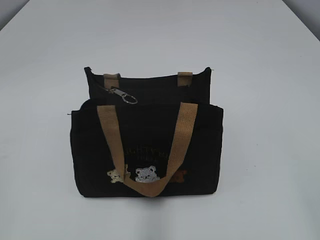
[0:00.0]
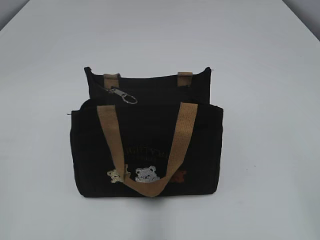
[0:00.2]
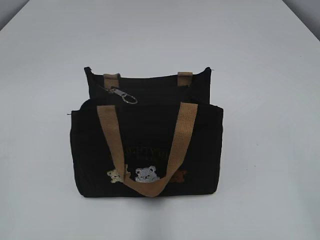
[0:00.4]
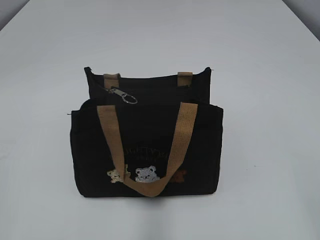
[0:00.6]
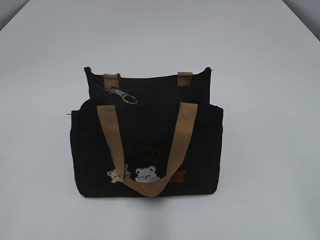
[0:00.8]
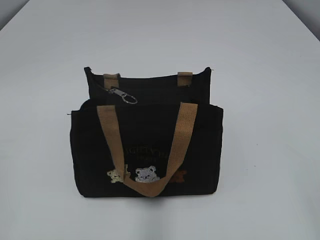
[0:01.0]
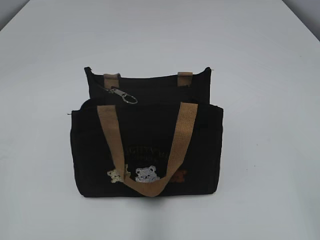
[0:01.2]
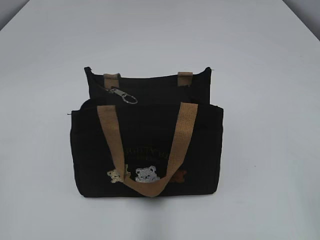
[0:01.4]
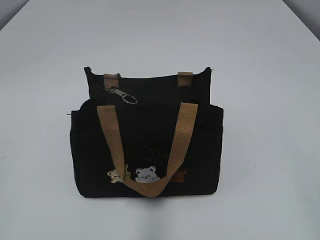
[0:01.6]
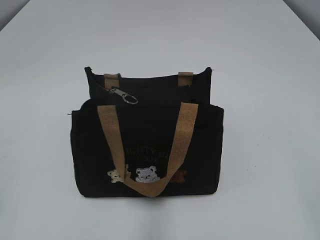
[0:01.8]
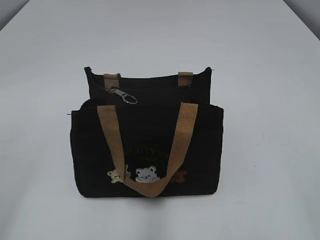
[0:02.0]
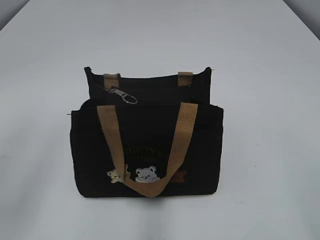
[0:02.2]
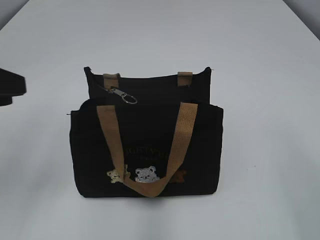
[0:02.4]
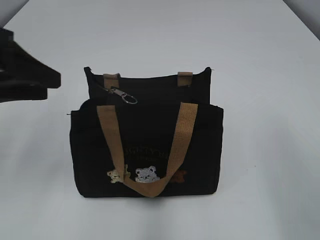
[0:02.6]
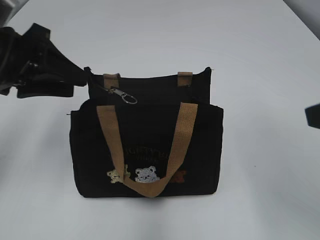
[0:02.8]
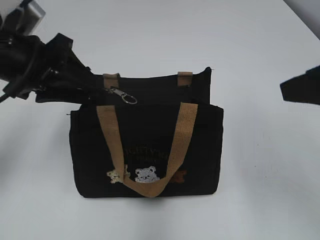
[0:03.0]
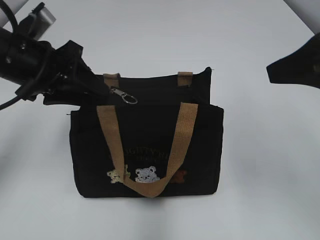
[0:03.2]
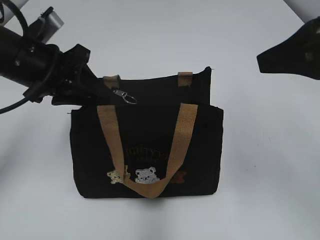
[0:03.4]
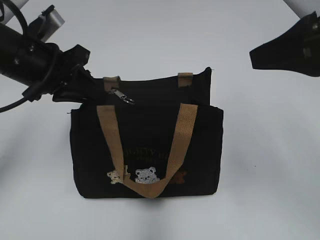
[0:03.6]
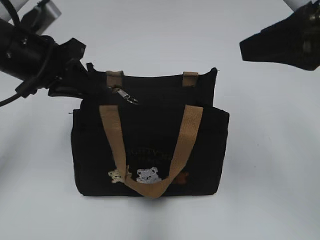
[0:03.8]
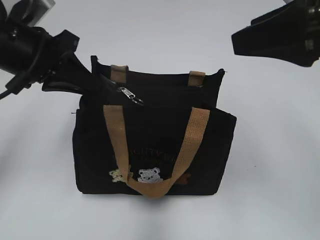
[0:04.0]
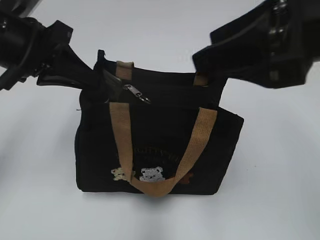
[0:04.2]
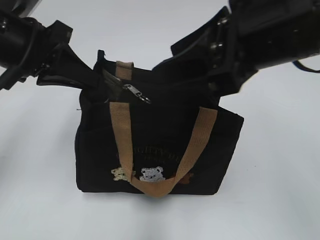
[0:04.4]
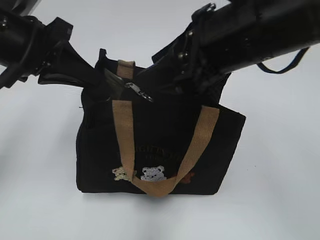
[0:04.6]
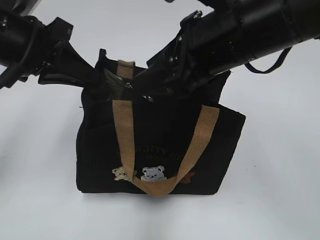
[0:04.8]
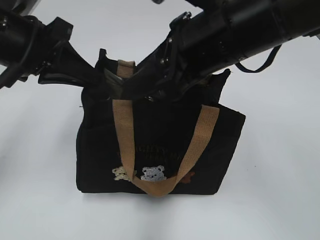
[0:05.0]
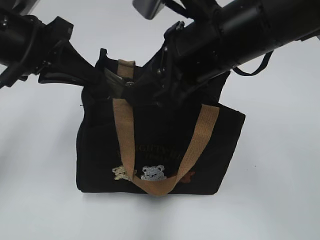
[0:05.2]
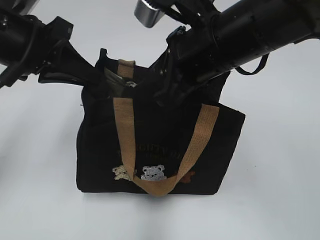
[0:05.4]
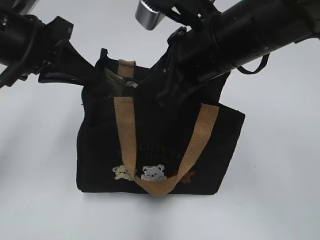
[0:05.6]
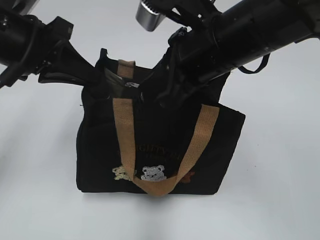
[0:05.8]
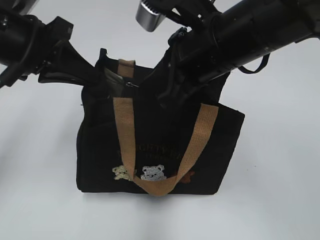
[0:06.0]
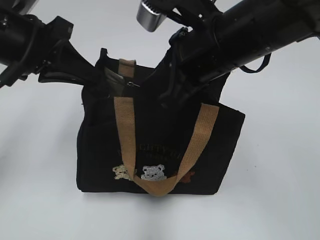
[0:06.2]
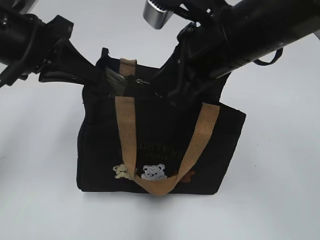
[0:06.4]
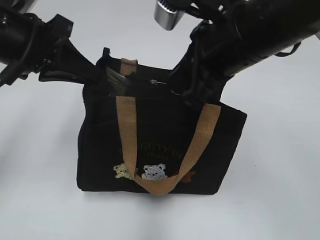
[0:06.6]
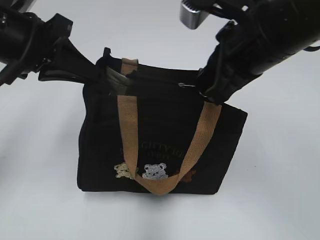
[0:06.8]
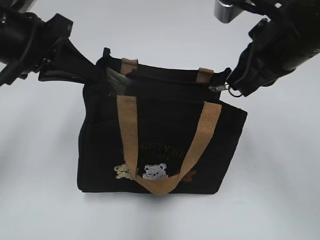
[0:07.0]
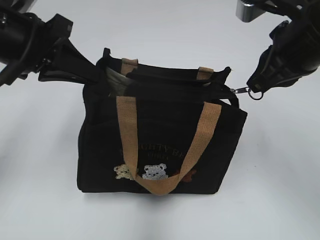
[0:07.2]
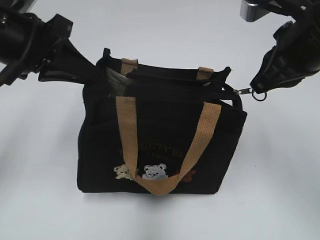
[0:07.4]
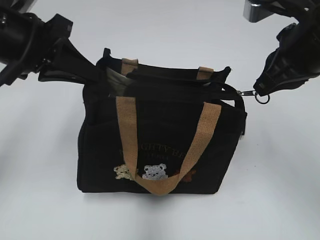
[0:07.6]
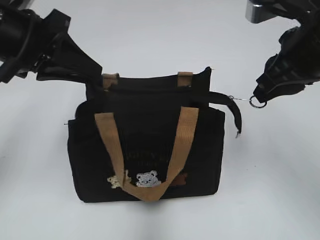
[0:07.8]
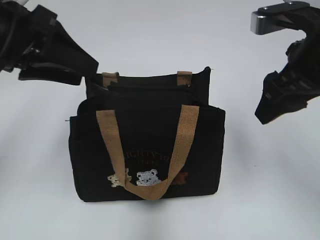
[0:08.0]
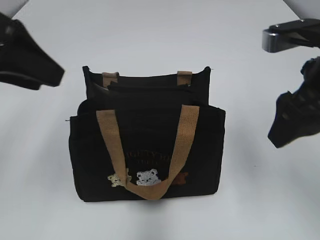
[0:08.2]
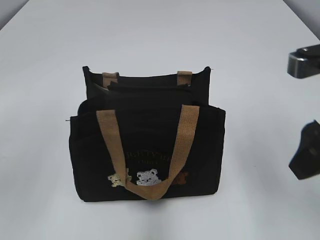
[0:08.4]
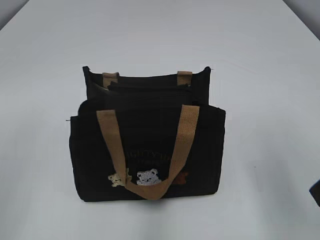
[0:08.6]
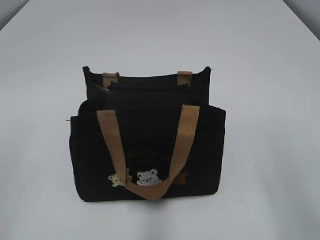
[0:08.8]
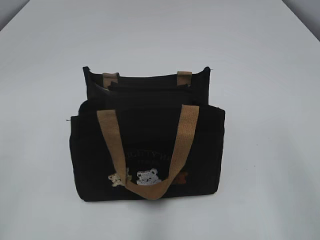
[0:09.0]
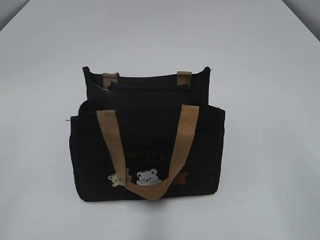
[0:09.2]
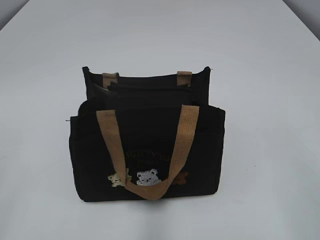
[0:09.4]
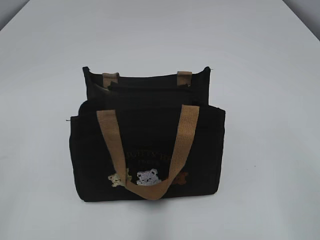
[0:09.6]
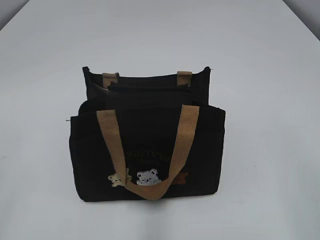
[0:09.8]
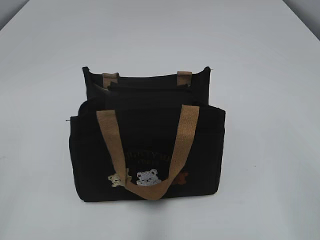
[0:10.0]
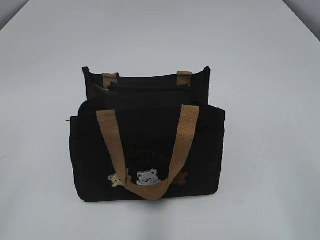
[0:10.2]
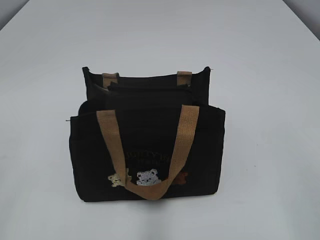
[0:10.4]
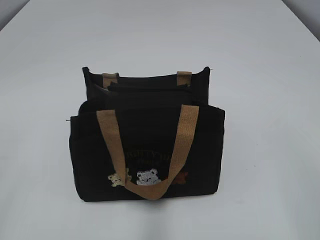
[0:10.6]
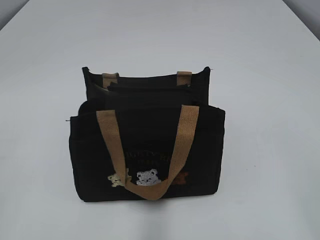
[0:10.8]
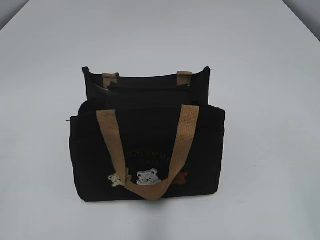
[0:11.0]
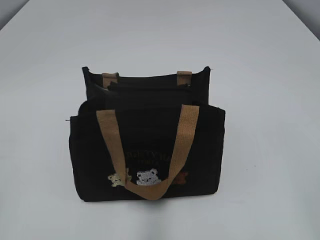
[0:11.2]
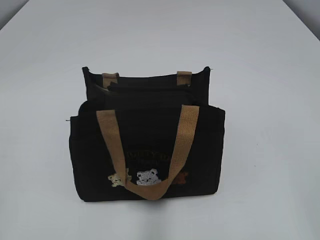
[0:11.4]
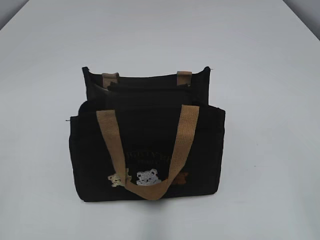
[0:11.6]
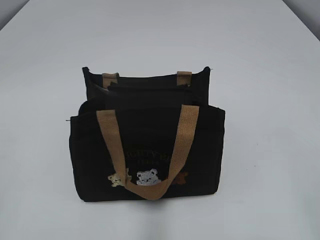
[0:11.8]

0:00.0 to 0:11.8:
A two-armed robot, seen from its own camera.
Step, 0:00.0 to 0:07.8: Pull open the zipper with your right hand.
0:01.4 to 0:03.0: The left gripper goes about 30 cm forward, while the right gripper is displaced forward by about 15 cm.
0:03.0 to 0:04.4: The right gripper moves to the left, roughly 10 cm. Meanwhile the left gripper closes up.
0:04.4 to 0:06.0: The right gripper is displaced forward, to the left and downward by some 10 cm, and closes.
0:06.0 to 0:07.4: The right gripper goes roughly 10 cm to the right.
0:07.4 to 0:08.8: The left gripper is displaced backward and to the left by approximately 25 cm, and opens up. The right gripper travels backward by some 15 cm, and opens.

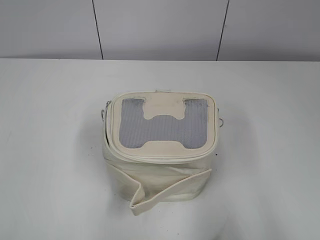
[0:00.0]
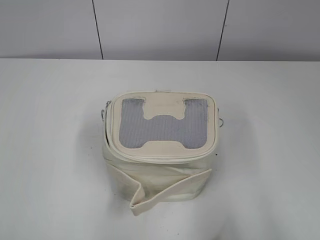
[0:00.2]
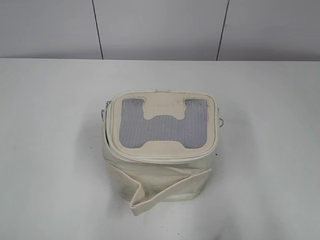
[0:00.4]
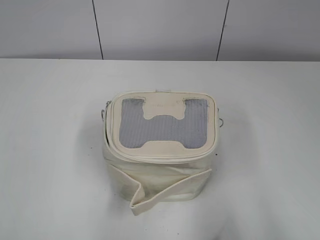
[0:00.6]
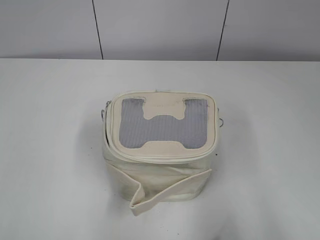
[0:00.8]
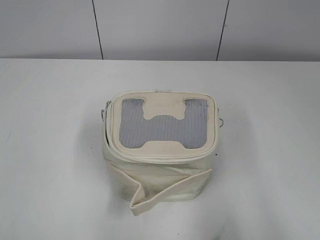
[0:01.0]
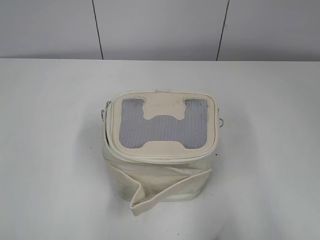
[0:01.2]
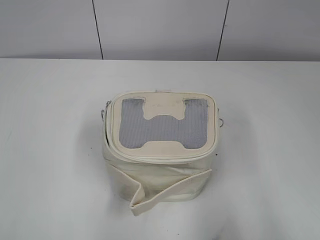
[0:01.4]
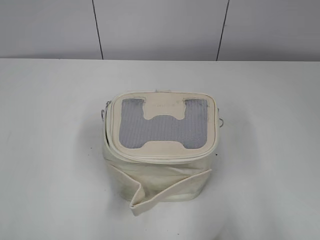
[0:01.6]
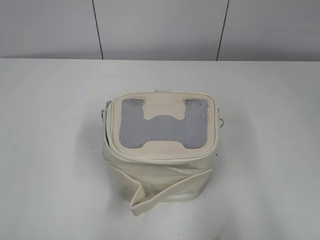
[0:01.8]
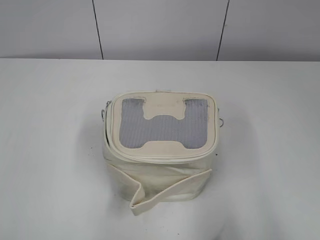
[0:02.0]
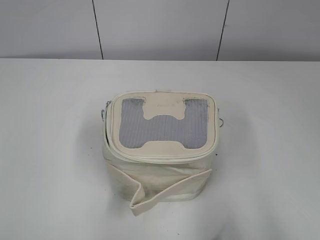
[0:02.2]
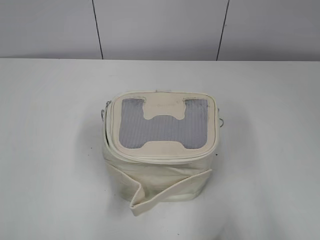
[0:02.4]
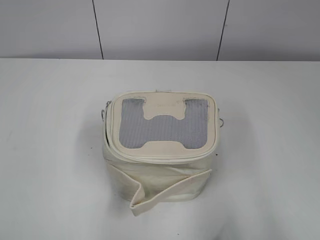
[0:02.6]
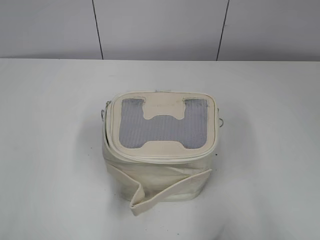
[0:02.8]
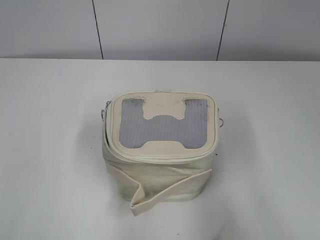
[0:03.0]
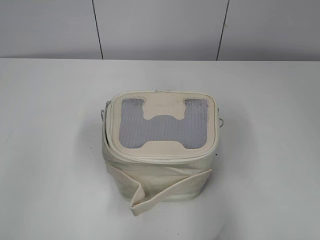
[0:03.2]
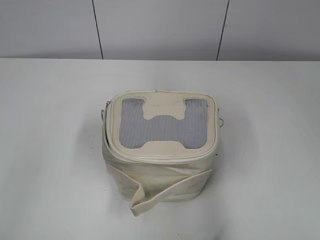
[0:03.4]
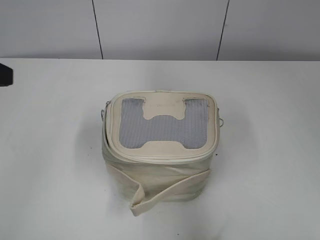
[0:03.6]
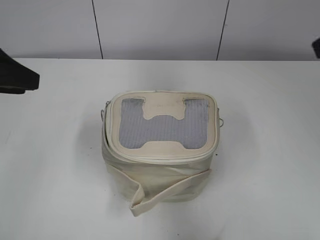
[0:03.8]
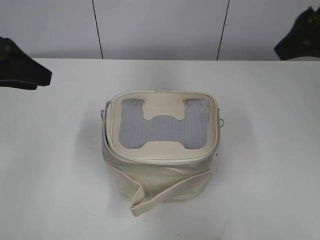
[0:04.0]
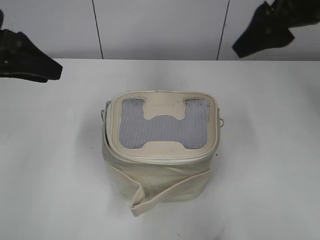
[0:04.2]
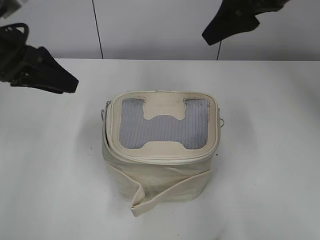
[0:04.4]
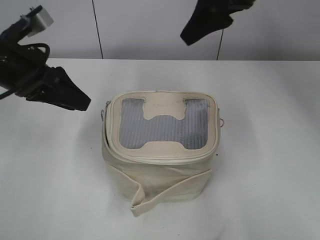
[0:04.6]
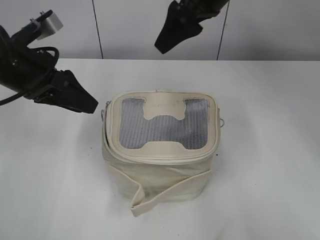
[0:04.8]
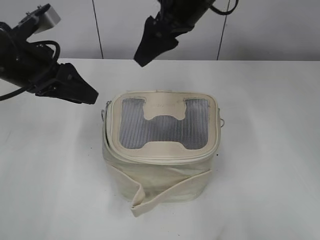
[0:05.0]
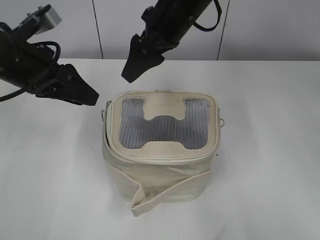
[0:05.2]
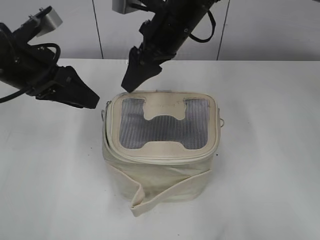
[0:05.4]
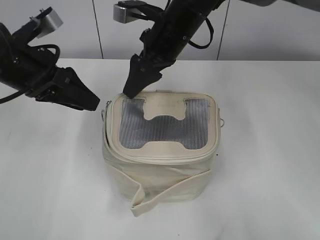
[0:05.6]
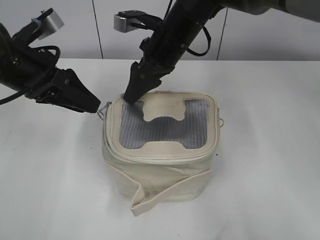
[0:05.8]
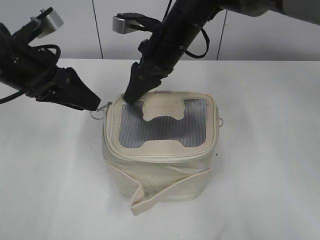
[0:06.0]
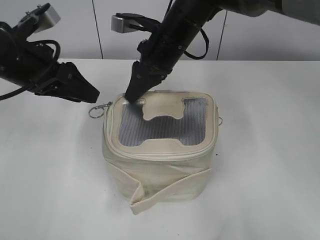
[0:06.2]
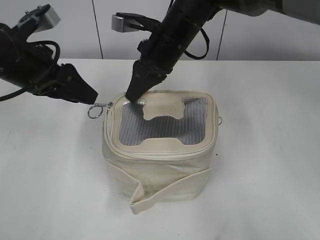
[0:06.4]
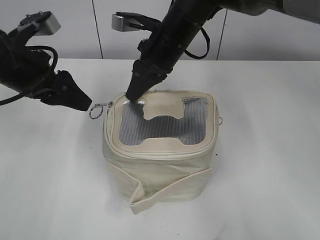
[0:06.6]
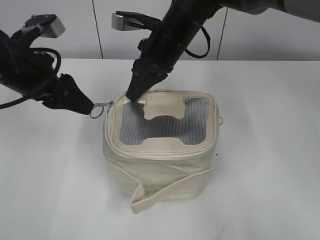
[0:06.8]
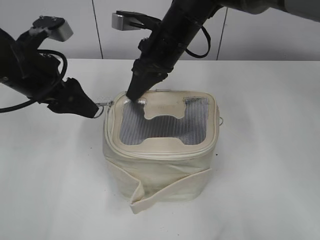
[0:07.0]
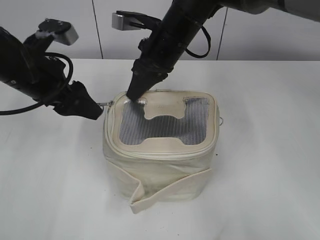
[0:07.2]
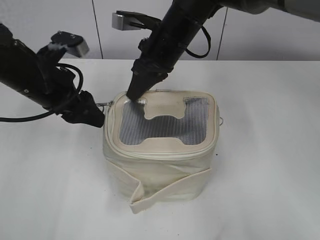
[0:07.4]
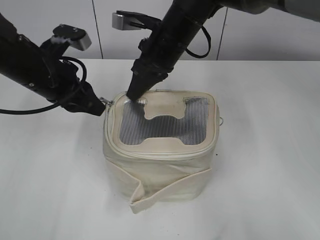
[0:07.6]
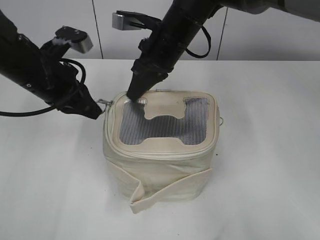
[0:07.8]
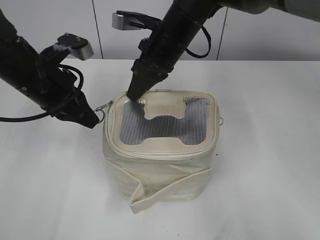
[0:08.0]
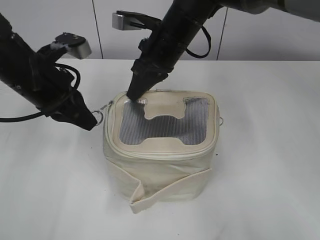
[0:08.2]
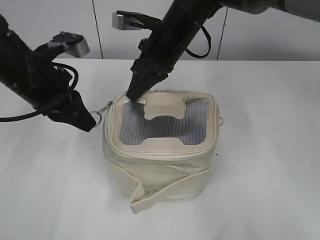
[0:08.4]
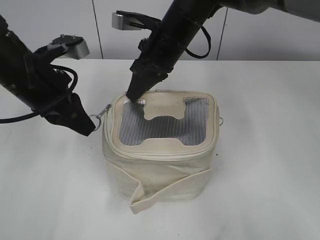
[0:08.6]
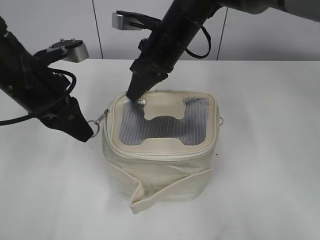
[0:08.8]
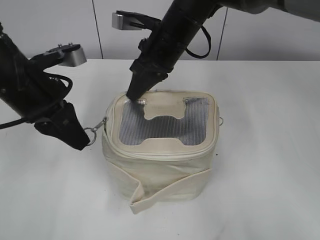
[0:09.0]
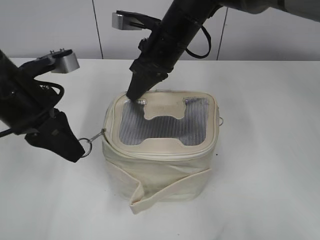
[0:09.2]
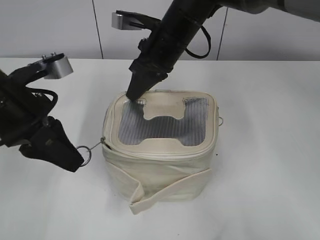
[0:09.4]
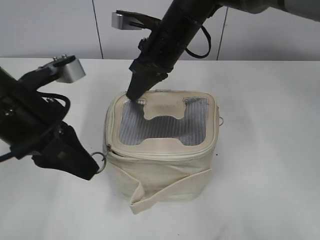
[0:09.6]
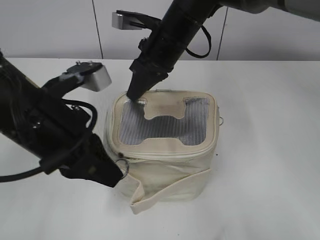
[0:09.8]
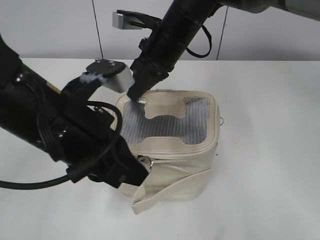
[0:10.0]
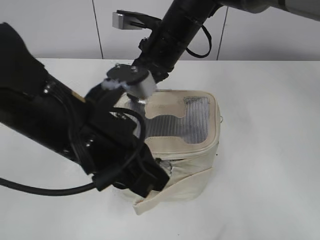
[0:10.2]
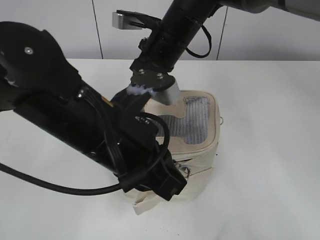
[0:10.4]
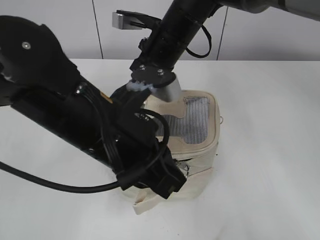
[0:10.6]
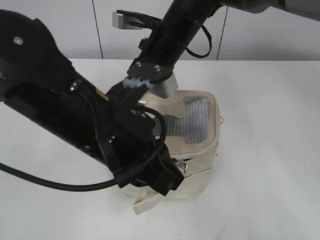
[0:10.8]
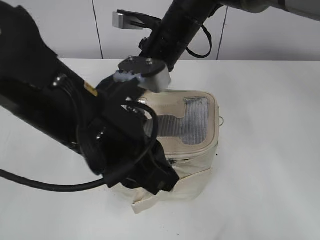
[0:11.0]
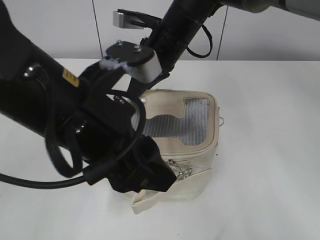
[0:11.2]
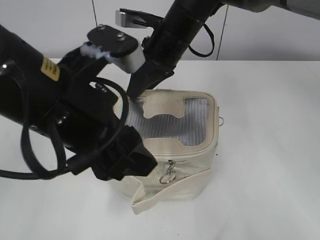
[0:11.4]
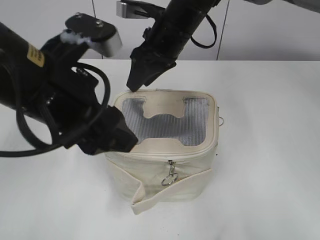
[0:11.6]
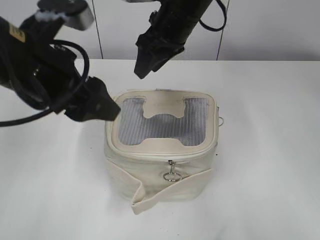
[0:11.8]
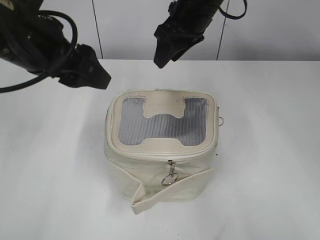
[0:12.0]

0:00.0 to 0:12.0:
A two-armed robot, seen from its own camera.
Step, 0:00.0 to 0:11.0: Zip up the bag with your left hand.
Step, 0:11.2 to 0:11.6: Hold the bag with your right hand.
0:03.0 to 0:04.4: The right gripper travels forward and to the left by some 35 cm. The left gripper is displaced forward by about 25 cm.
0:04.4 to 0:06.0: The right gripper travels to the left and downward by approximately 20 cm.
0:06.0 to 0:07.6: The right gripper closes its fingers.
0:07.6 to 0:09.0: The left gripper closes up.
0:09.0 to 0:10.4: The left gripper is displaced to the right and backward by some 15 cm.
0:10.4 to 0:12.0: The left gripper heads to the left, forward and upward, covering about 15 cm, and opens its fingers. The right gripper heads upward, covering some 5 cm, and opens up.
